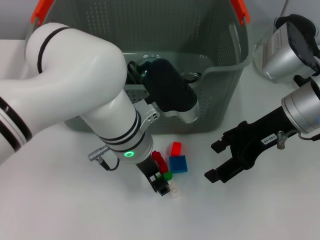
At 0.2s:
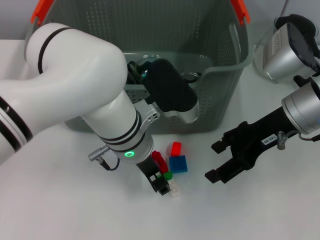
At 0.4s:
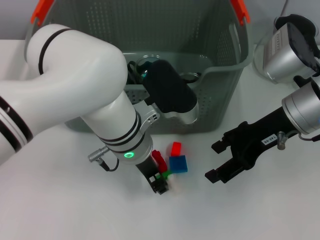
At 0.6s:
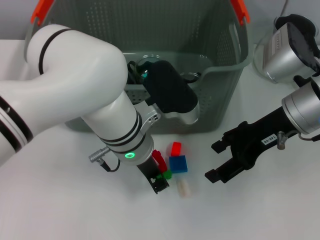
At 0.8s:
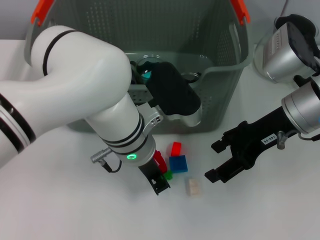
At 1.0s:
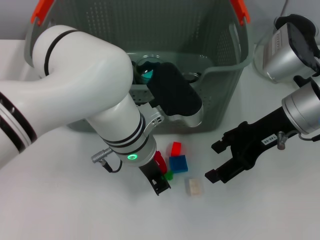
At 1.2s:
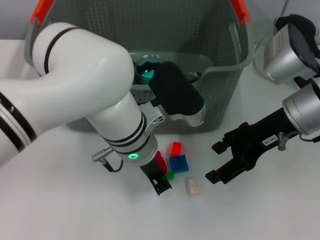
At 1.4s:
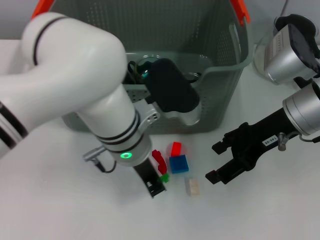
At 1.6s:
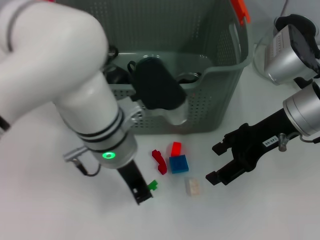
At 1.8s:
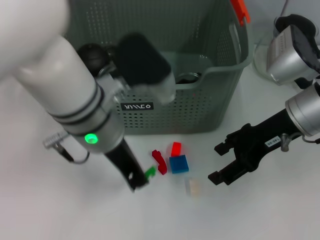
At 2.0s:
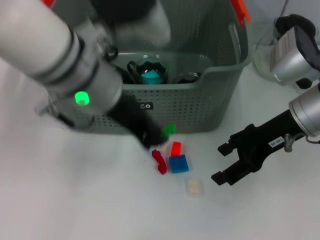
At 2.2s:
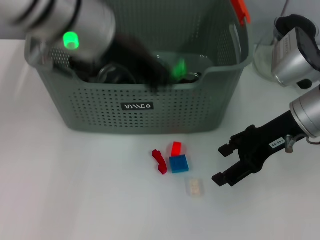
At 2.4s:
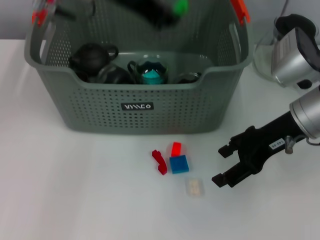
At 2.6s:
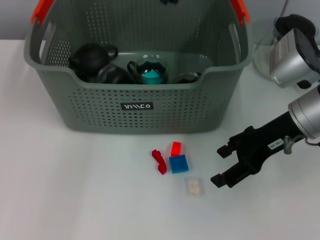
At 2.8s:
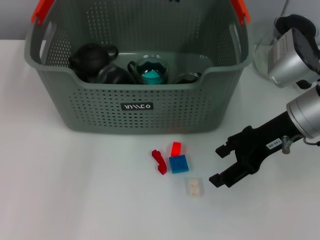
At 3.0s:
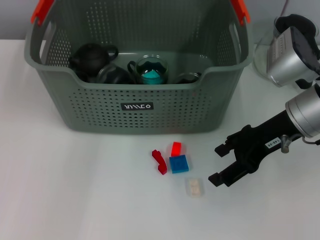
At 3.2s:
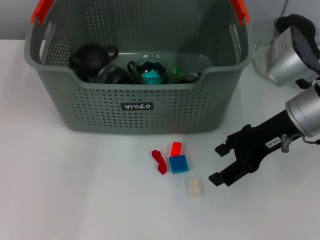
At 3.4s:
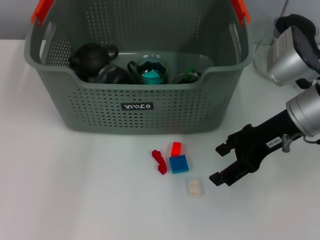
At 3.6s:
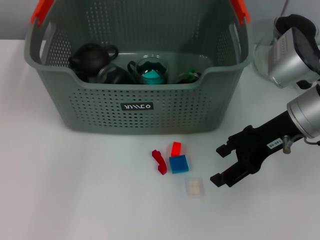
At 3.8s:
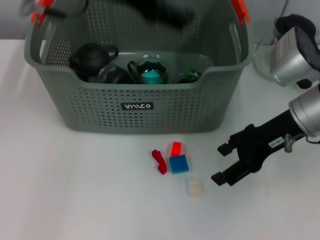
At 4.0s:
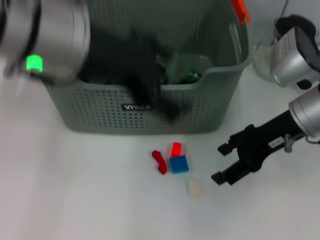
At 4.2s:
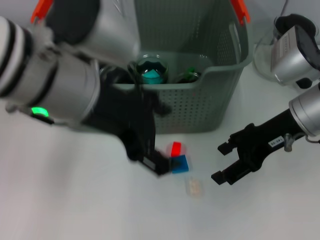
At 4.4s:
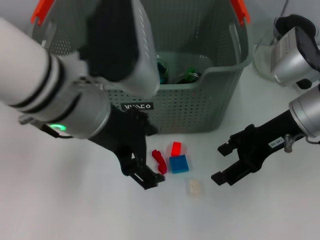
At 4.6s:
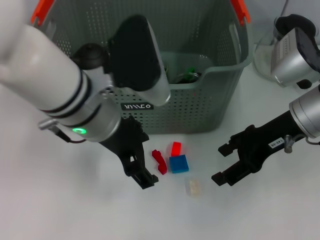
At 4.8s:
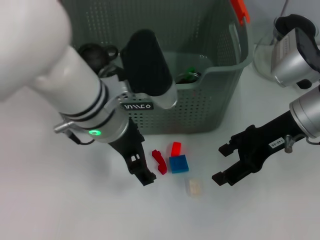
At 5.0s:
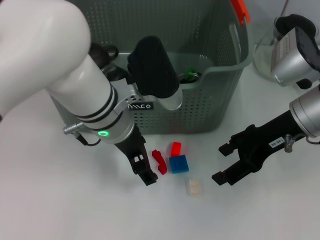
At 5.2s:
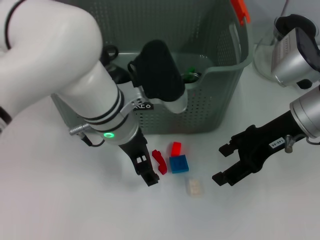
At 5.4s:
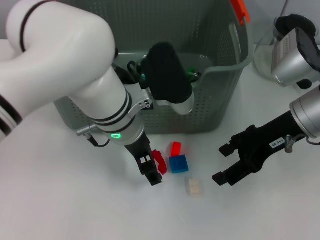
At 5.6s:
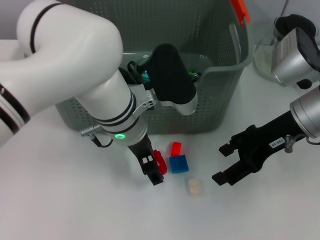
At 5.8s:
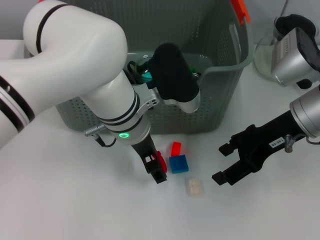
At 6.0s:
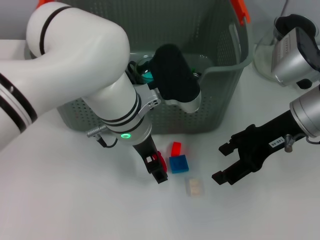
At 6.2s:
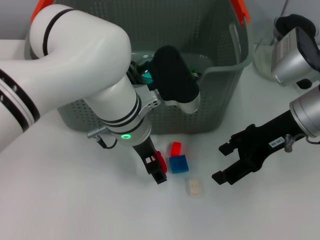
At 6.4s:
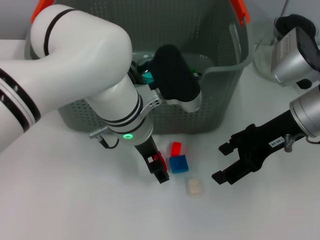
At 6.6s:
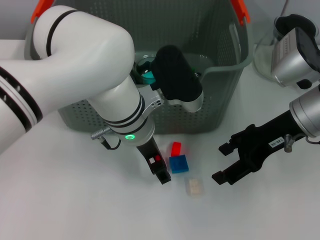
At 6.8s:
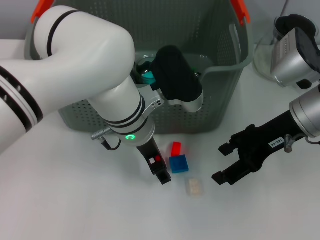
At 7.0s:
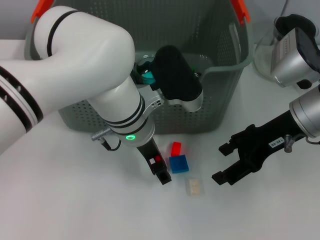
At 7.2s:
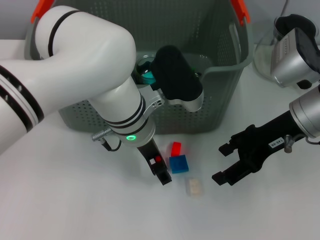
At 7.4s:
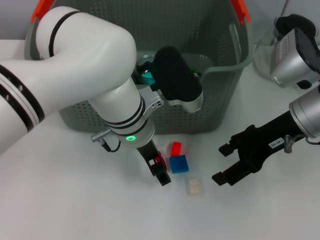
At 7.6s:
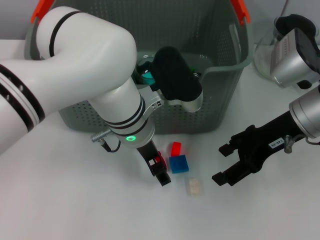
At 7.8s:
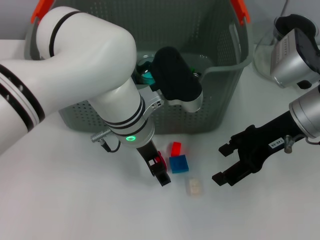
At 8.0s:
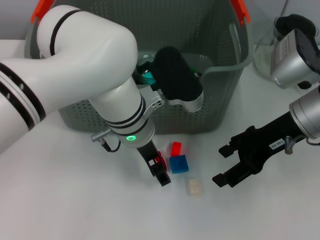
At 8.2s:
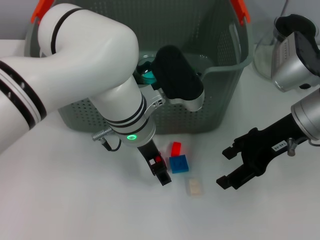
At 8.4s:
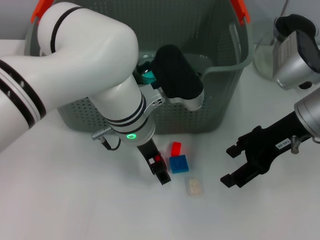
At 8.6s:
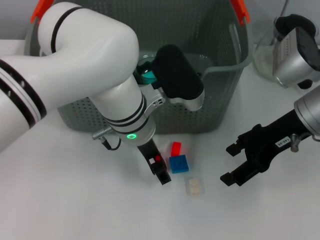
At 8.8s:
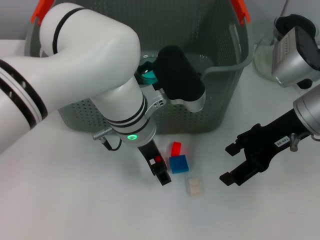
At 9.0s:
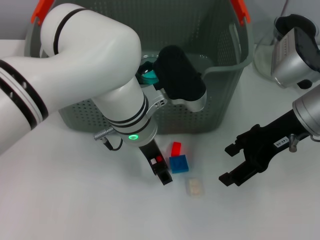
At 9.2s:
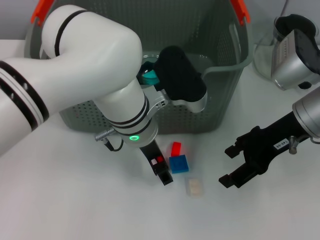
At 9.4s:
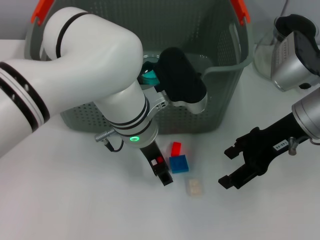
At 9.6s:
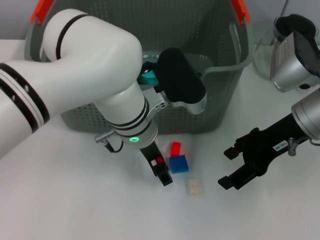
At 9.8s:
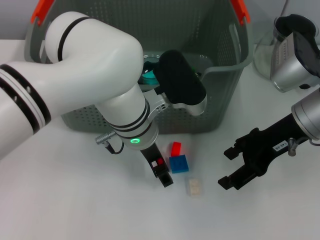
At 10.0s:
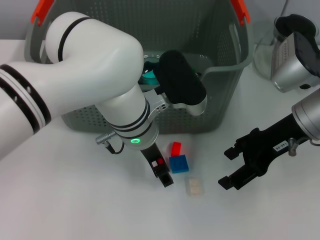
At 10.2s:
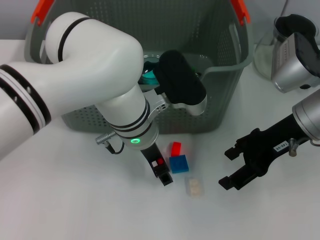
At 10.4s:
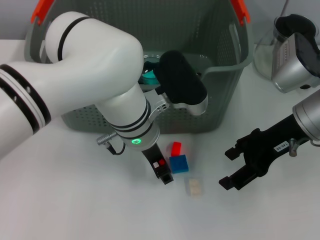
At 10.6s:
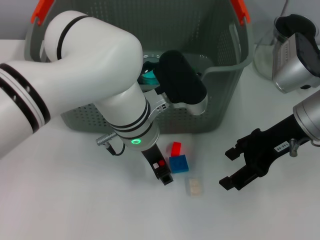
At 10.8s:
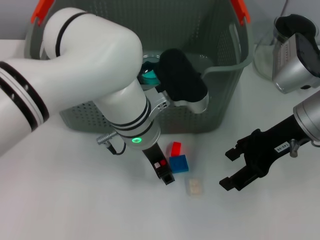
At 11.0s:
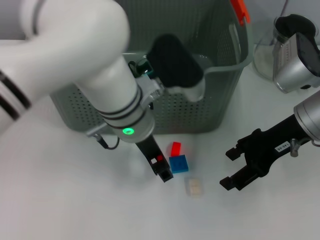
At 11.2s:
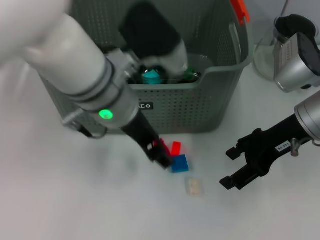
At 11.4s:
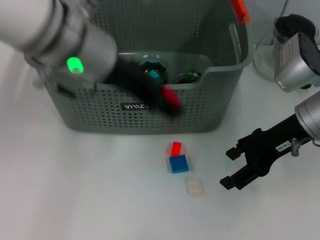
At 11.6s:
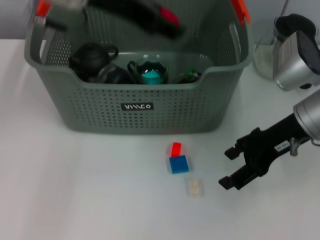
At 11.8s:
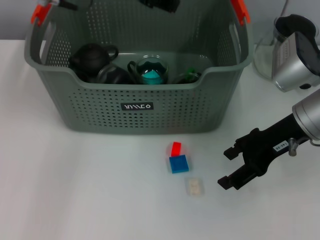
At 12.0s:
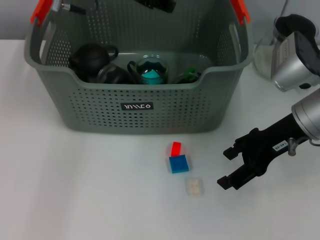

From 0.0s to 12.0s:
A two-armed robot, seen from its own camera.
Task of the whole recording: pick up the teacup on the table and place it into the storage bin, pick up the block on the table and place it into the storage bin.
Step, from 1.0s to 3.0s: Place the green block in the storage box with left gripper.
Step, from 3.2s to 10.4s: Grasp the red block with left gripper.
From 0.0s to 1.6s: The left gripper closes up.
From 1.6s to 3.0s: The left gripper is displaced forward and upward by some 20 cm.
From 3.0s to 4.4s: The left gripper goes approximately 15 cm backward, and opens up.
From 4.4s to 6.0s: The left gripper goes roughly 15 cm downward, forward and to the right.
From 6.0s to 9.0s: The two grippers keep their place.
From 9.0s to 10.4s: The two grippers keep their place.
From 10.4s to 12.0s: The left gripper shifts about 20 cm upward, forward and to the left.

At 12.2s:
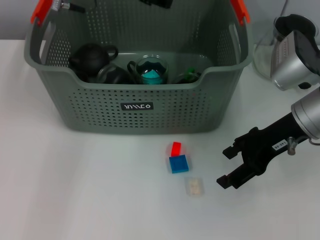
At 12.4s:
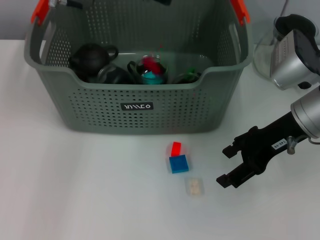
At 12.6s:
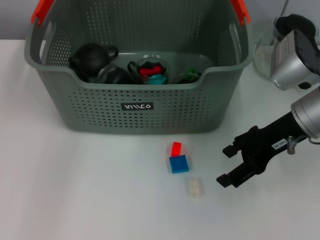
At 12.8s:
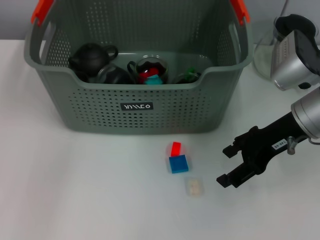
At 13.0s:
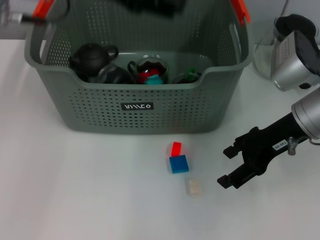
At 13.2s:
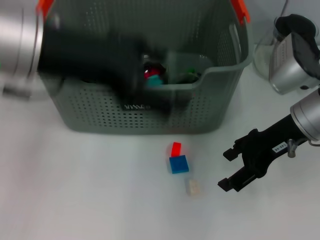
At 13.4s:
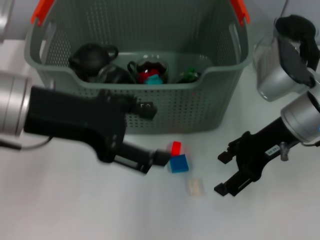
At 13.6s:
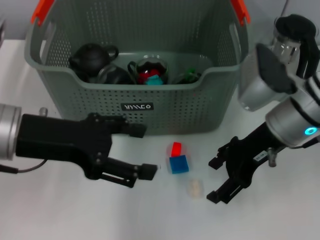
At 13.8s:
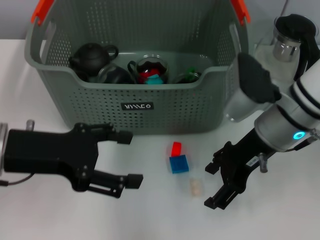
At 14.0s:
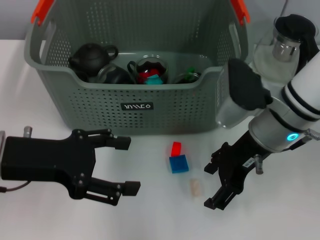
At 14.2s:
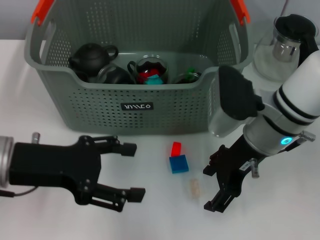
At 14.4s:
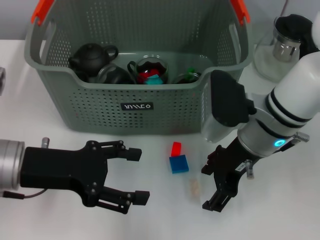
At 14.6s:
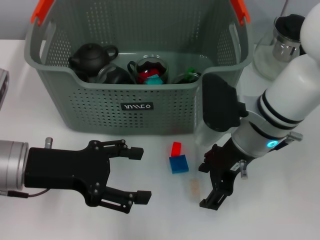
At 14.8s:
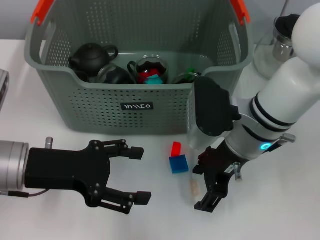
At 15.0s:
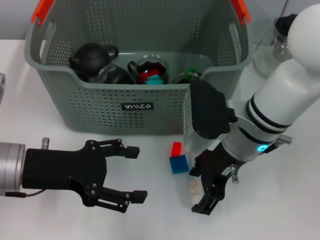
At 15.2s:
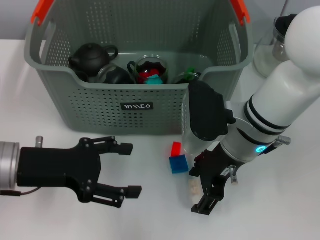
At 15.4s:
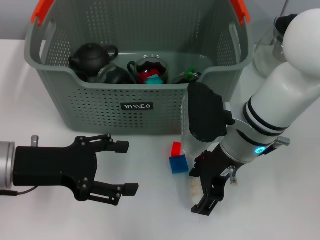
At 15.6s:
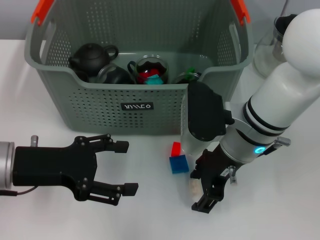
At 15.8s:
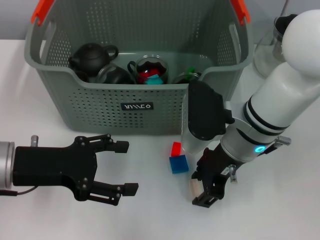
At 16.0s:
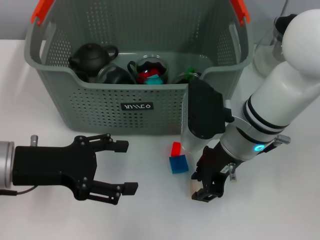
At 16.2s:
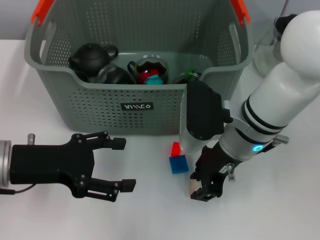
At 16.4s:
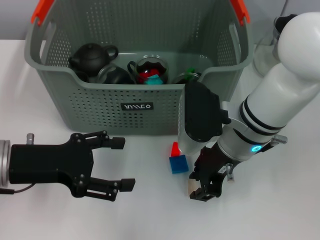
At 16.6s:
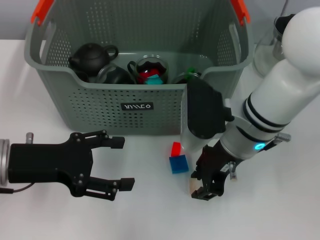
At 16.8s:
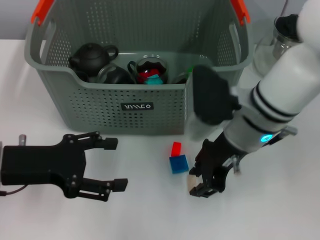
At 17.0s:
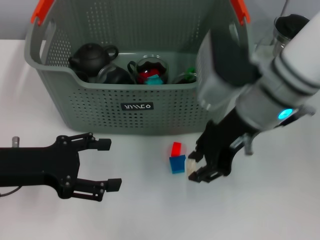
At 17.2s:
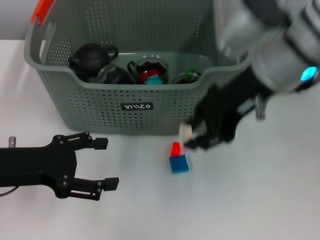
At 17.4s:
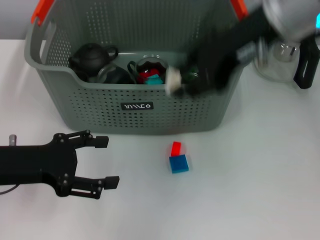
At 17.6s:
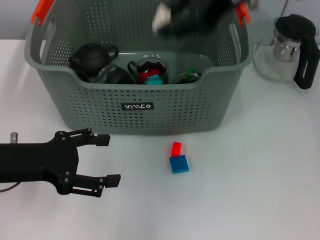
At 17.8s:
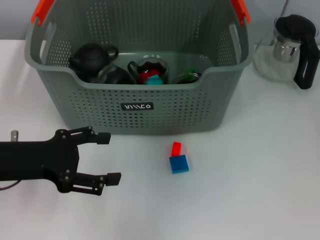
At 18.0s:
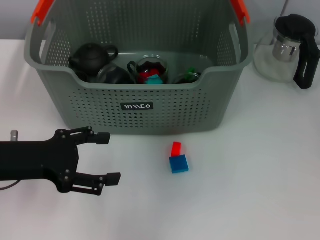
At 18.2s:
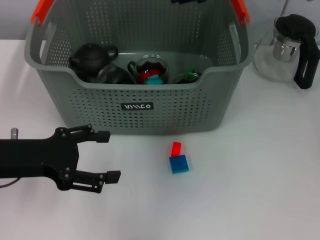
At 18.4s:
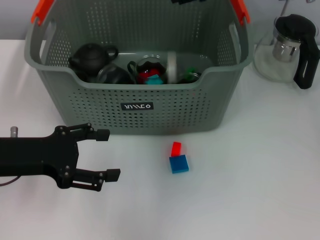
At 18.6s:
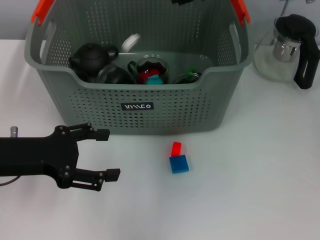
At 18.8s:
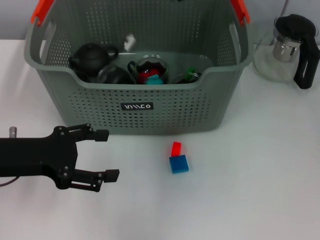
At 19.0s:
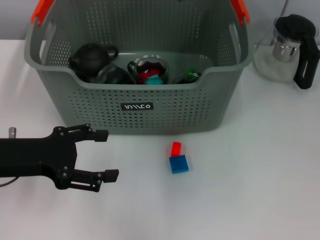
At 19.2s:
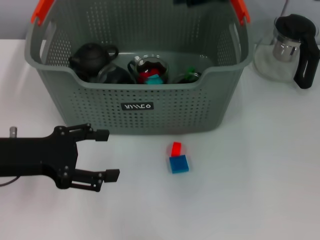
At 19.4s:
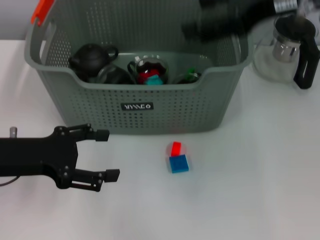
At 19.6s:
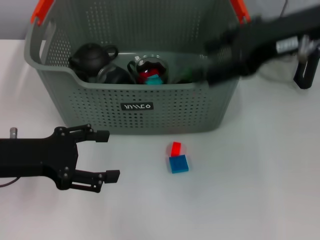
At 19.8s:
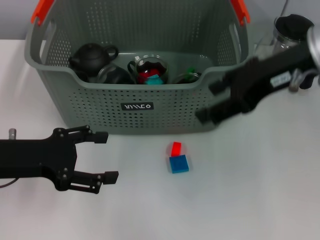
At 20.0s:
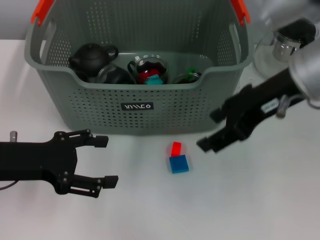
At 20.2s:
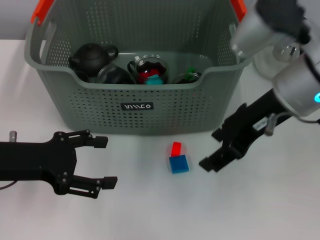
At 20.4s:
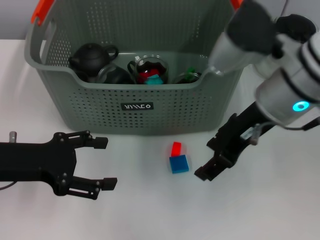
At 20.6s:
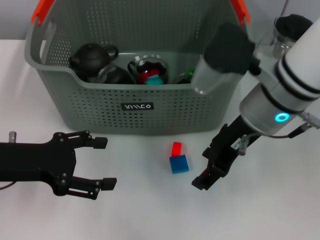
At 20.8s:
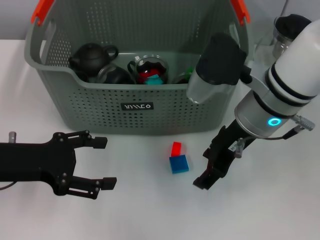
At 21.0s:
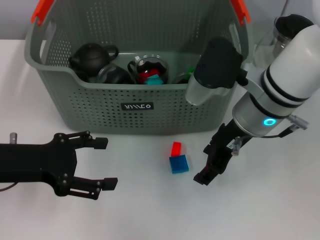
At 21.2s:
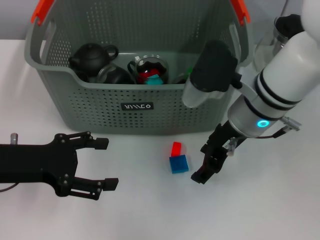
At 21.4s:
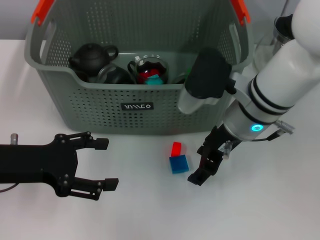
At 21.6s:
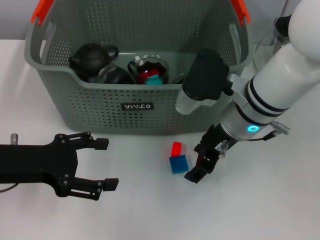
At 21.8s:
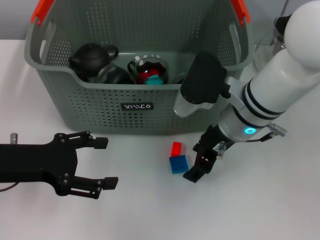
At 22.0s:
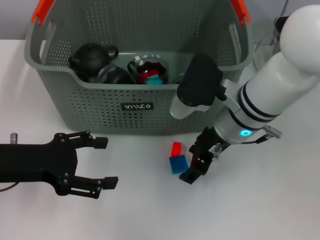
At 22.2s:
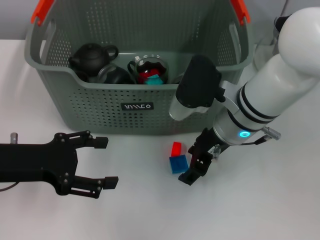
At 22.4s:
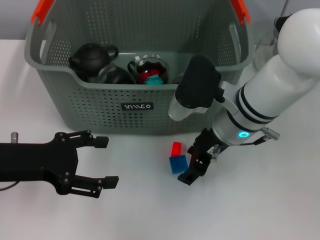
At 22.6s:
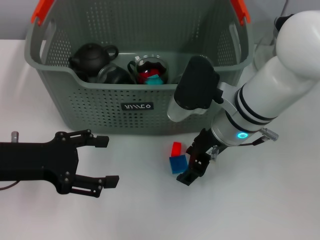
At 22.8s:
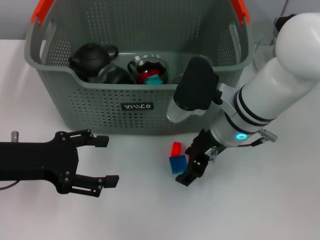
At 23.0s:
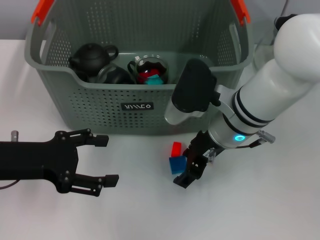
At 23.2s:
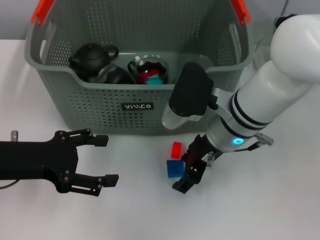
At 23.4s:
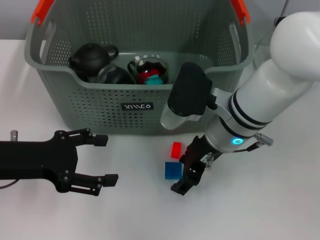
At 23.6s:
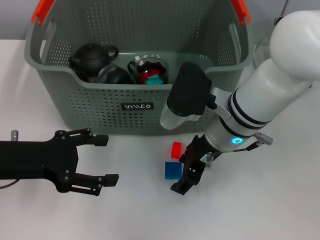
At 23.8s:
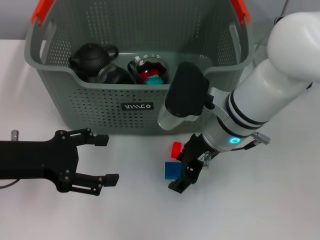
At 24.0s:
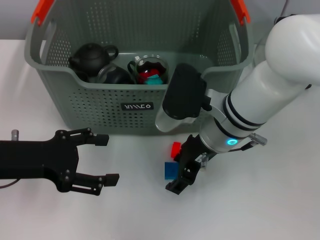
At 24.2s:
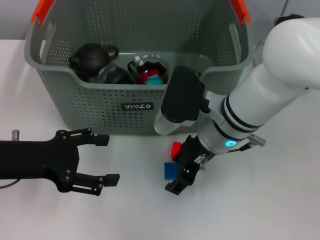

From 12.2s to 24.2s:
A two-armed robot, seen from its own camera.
Task of the whole recording: pick up the teacup on the table and place it into the storage bin, pick up the block on the table and place it into the storage bin.
Step, from 12.4s to 16.0s: Grasp the white block with right gripper.
Step, from 16.2s to 18.2s: Place the white block in the storage box with right gripper.
From 12.2s to 13.8s: The right gripper goes some 5 cm to the left; the left gripper travels backward, downward and to the left by roughly 25 cm.
From 13.8s to 15.2s: The right gripper ends up about 5 cm from where it was.
From 15.2s to 16.6s: The right gripper closes.
From 16.6s to 18.2s: The right gripper heads upward and forward, covering roughly 20 cm.
From 18.2s to 19.8s: The right gripper is displaced backward by some 10 cm, and opens its fingers.
From 19.8s to 21.2s: The right gripper goes about 15 cm downward and to the left.
From 21.2s to 24.2s: There are only small adjustments of the grippers.
